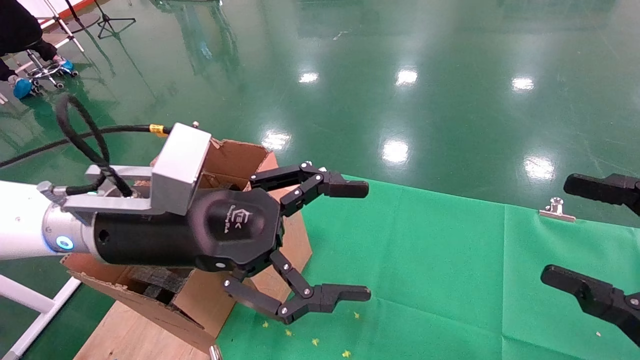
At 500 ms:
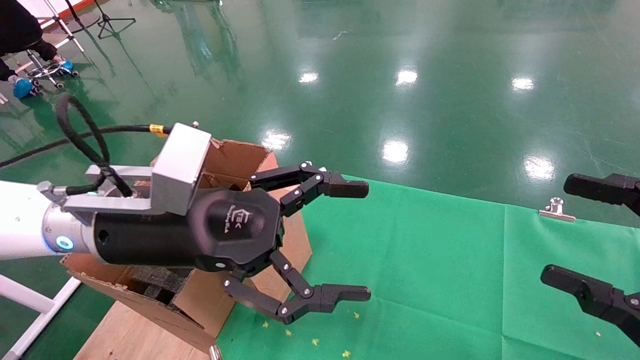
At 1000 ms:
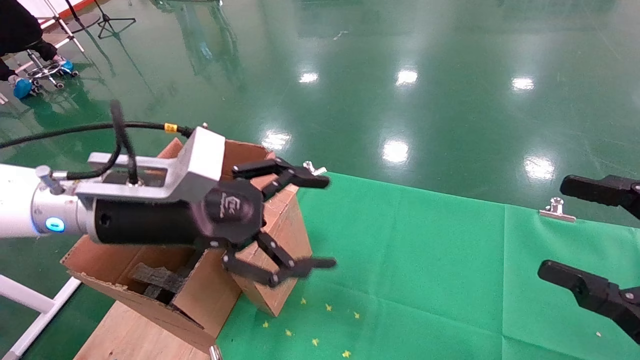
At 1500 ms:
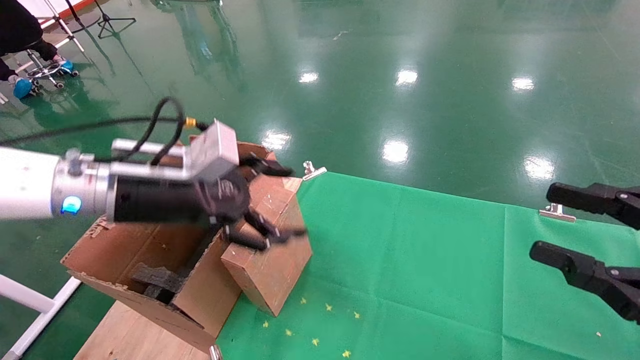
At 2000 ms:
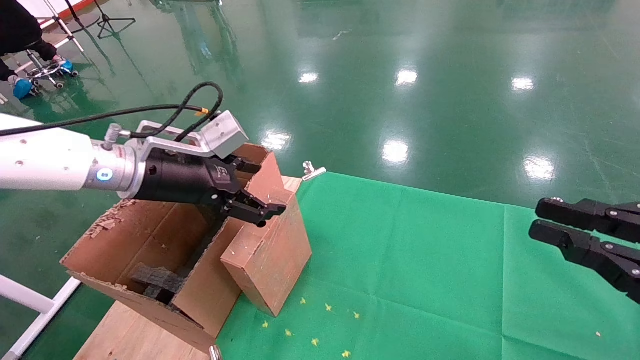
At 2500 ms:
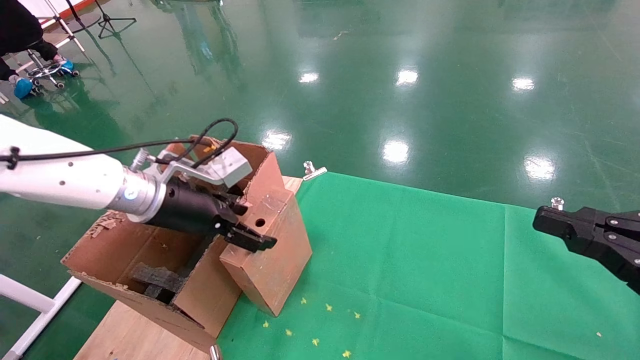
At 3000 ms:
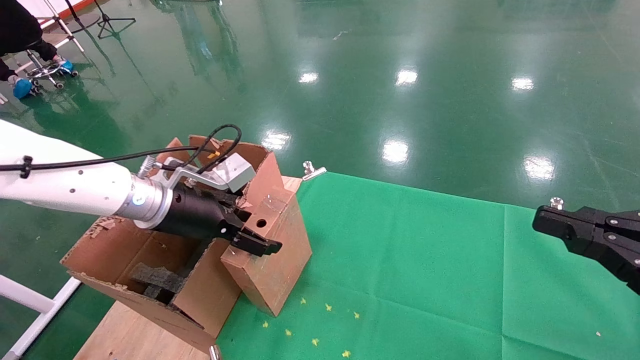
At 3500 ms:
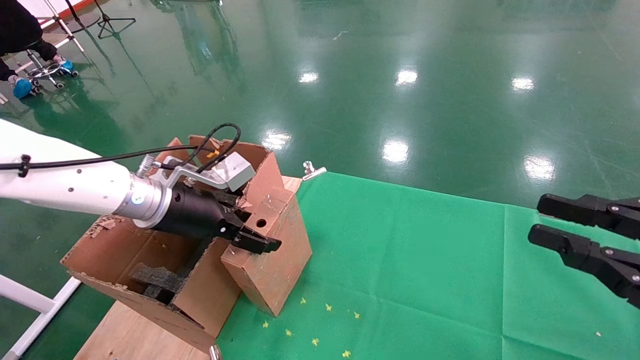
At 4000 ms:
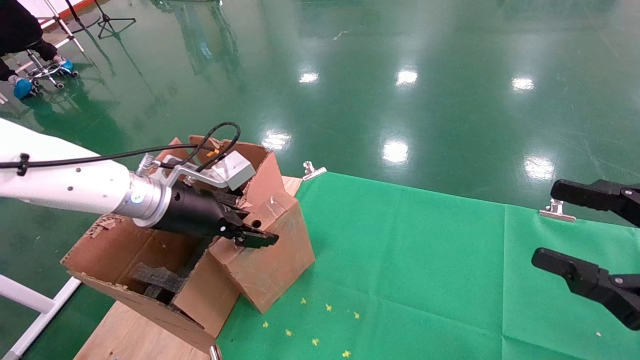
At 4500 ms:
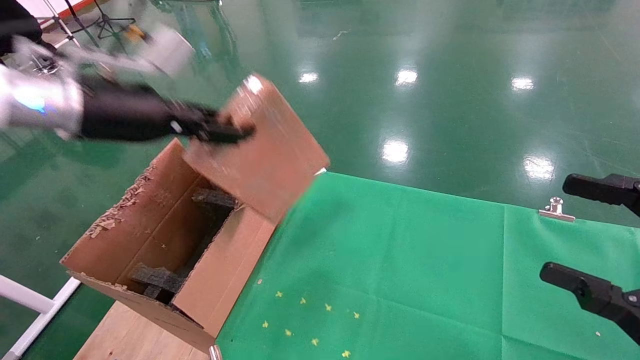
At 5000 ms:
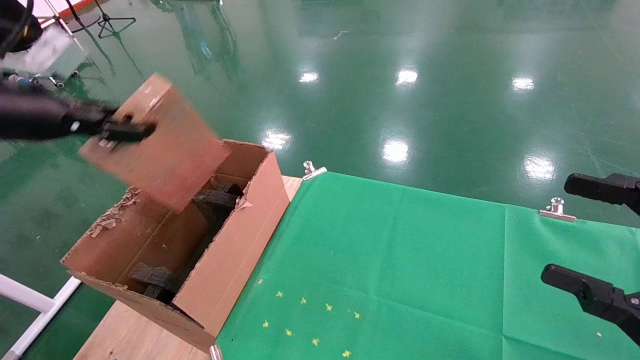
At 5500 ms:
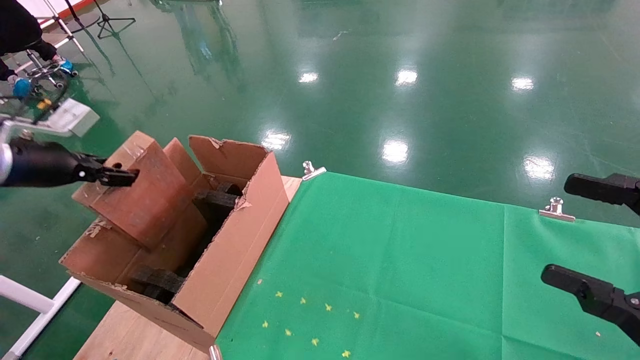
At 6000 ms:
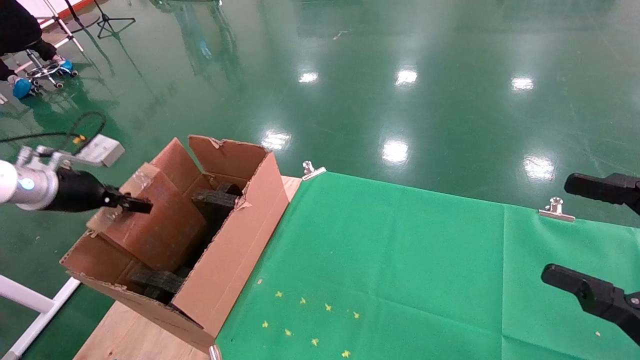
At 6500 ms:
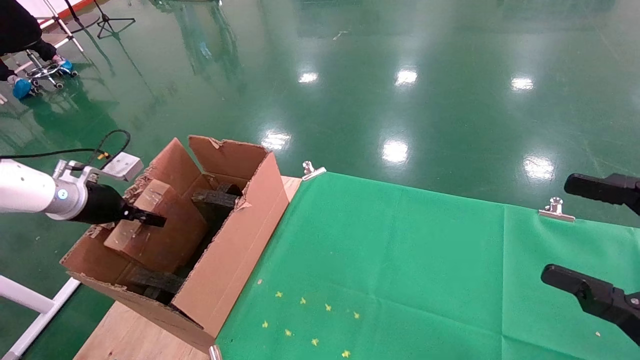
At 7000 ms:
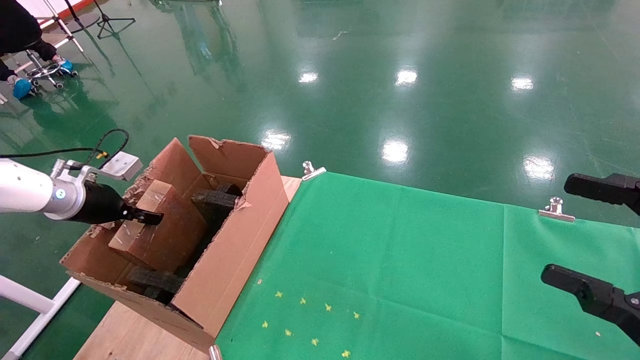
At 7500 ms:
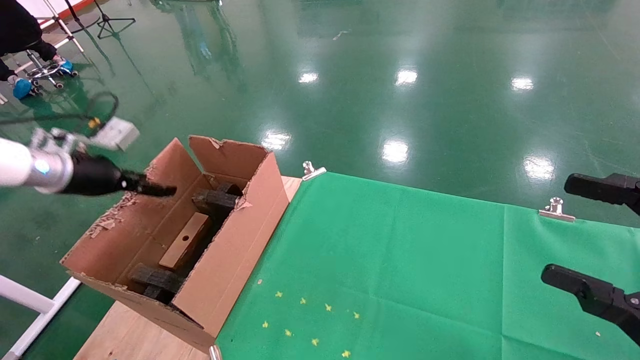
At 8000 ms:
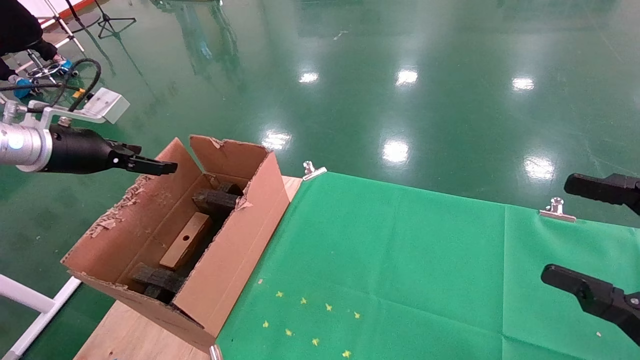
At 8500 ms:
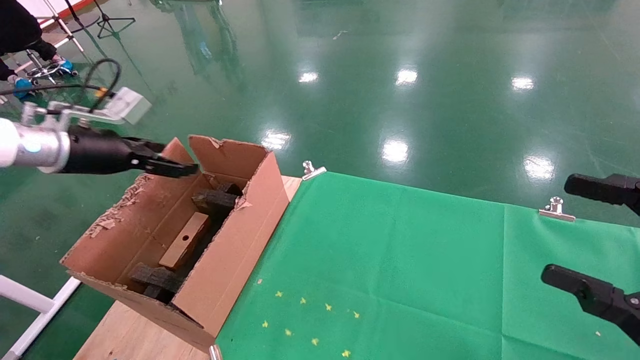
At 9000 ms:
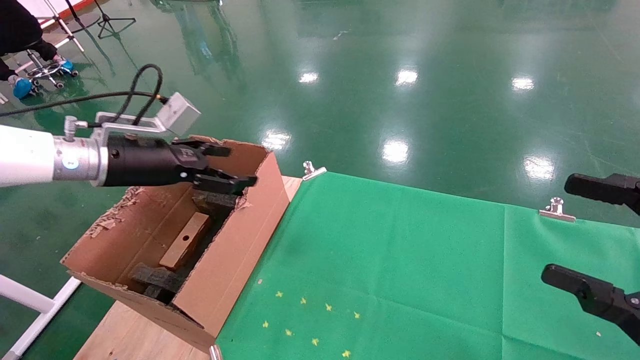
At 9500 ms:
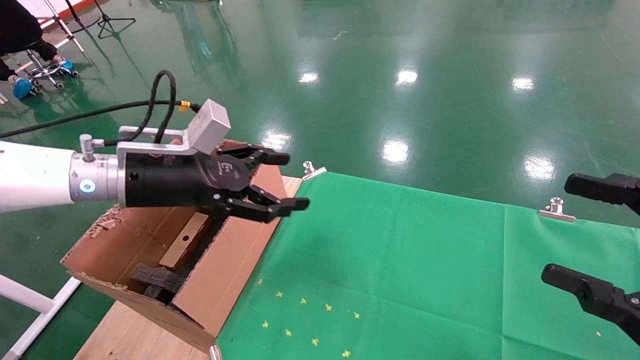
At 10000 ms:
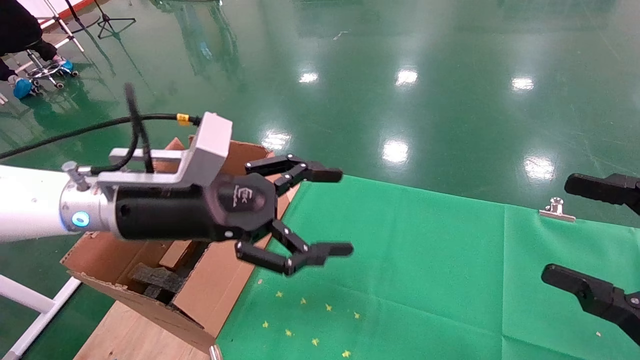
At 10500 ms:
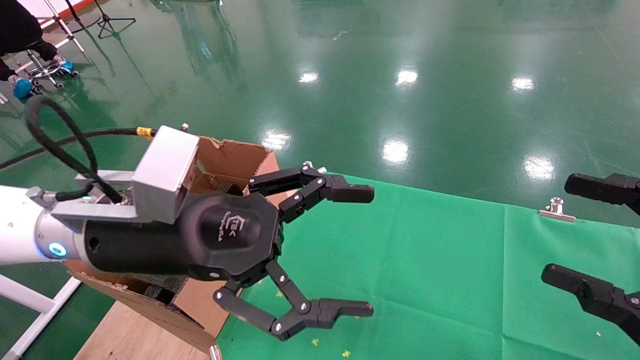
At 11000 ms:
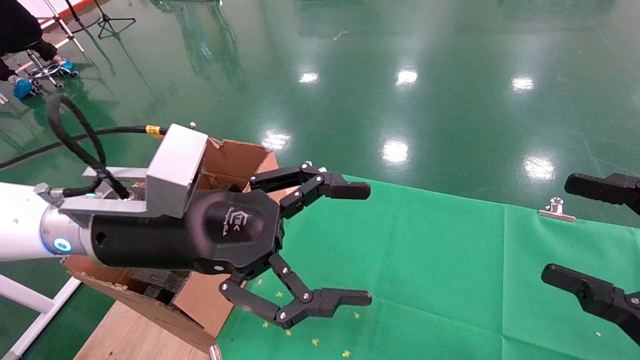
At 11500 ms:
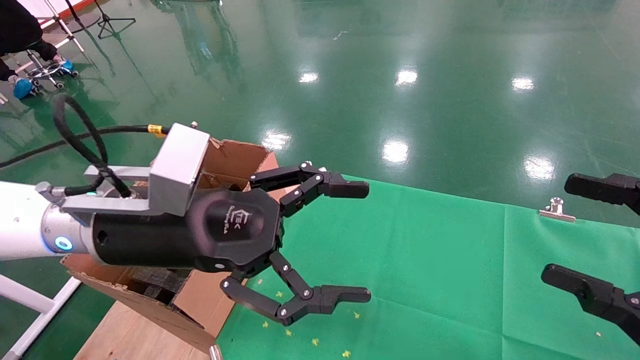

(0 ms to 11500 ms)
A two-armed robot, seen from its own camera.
Task of the whole recording: using a robotic arm to pick up a cardboard box and palace it the carton.
Step, 1500 ms - 4000 ms: Pick up the mouse and the power cord paper box.
Step, 4500 ms - 7500 ms: Place the mouse and the power cord paper box into the container.
0 ms - 2000 ms: The left gripper moves forward and to the left, some 10 cm. Meanwhile the right gripper closes up.
2000 ms - 4000 ms: The left gripper closes.
4000 ms - 6000 ms: The right gripper opens up; the left gripper goes approximately 25 cm to the left, and closes up.
6000 ms - 7500 ms: The left gripper opens its fingers.
7500 ms - 9500 ms: The left gripper moves to the right, roughly 20 cm, and opens.
9500 ms - 11500 ms: The left gripper heads backward and to the right, covering some 10 cm.

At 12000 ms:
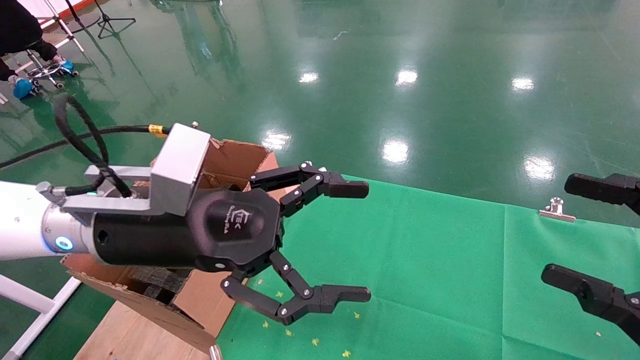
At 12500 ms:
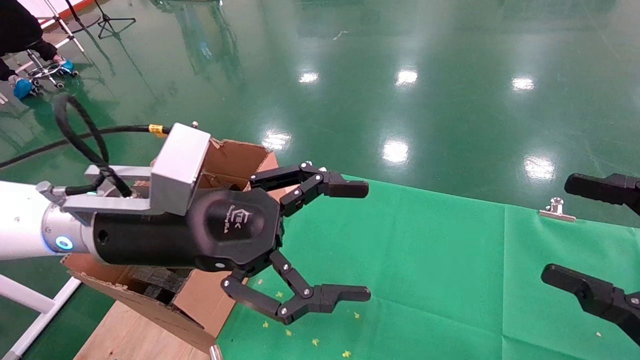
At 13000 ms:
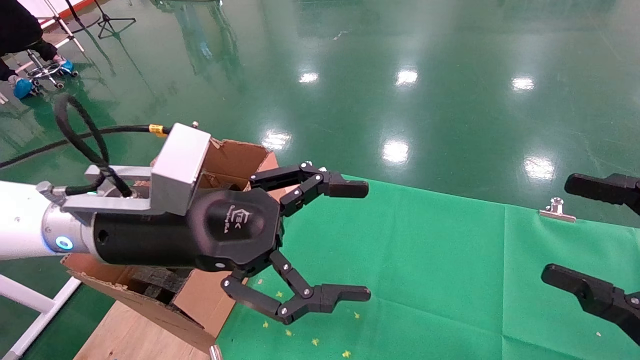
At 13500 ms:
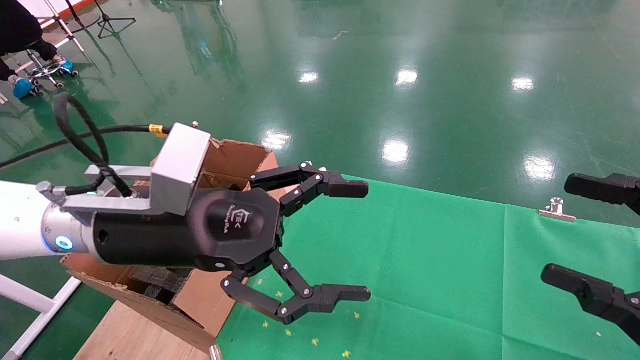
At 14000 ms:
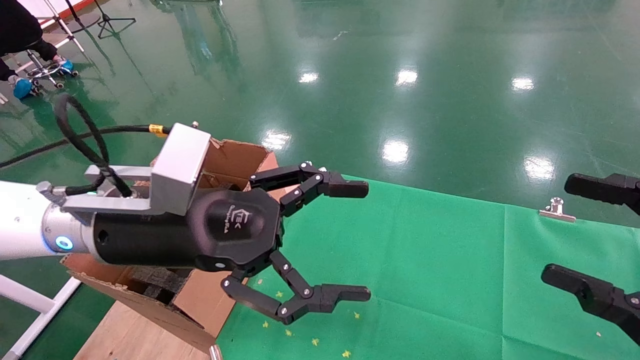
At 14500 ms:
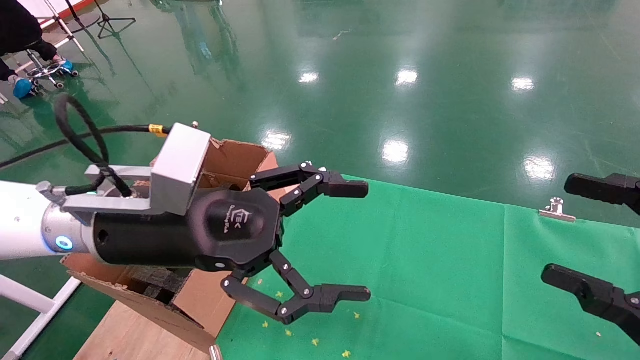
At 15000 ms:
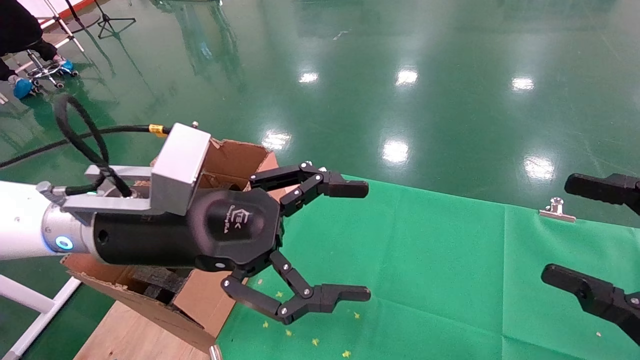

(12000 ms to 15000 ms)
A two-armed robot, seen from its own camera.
Task of the whole recording: using a robotic arm to pick up a cardboard box and palace it the carton.
12000 ms - 15000 ms: Both grippers stay put.
